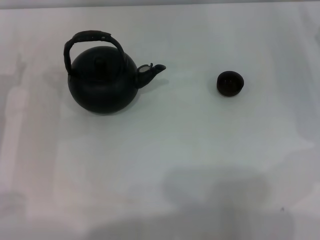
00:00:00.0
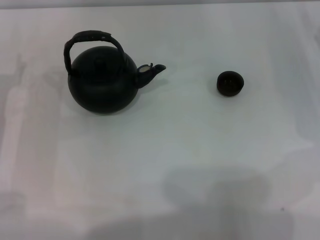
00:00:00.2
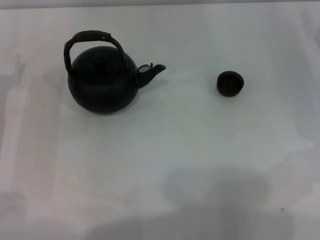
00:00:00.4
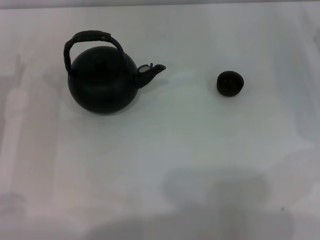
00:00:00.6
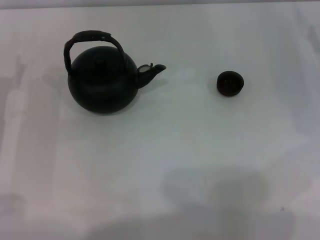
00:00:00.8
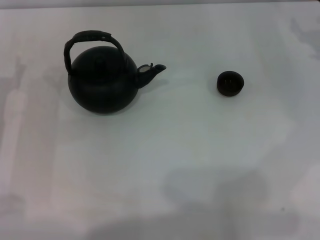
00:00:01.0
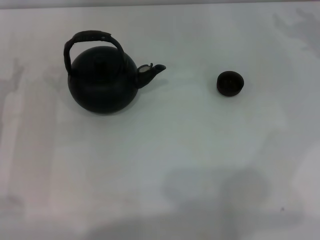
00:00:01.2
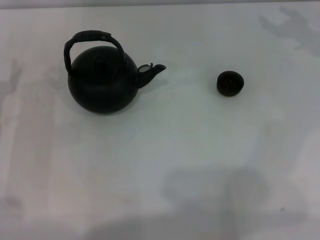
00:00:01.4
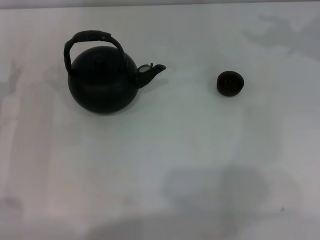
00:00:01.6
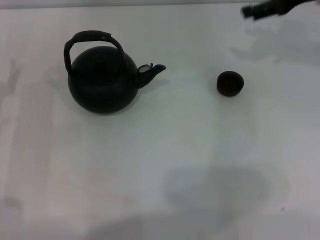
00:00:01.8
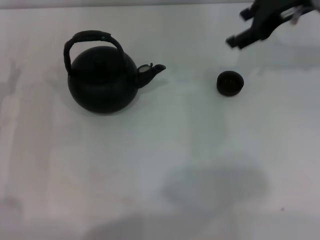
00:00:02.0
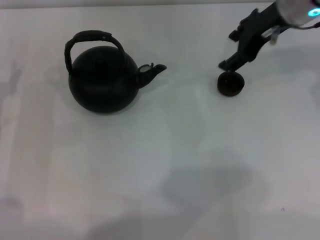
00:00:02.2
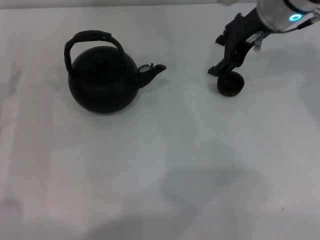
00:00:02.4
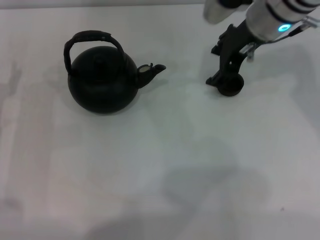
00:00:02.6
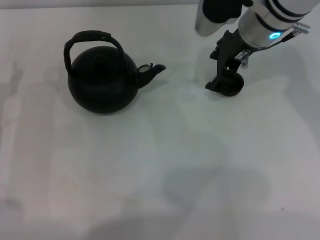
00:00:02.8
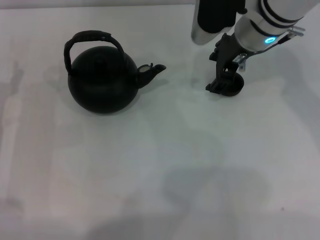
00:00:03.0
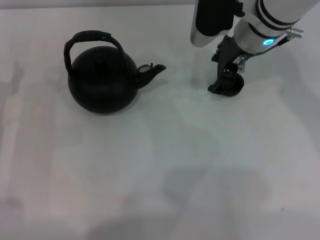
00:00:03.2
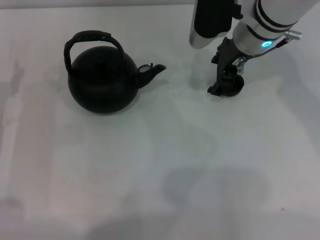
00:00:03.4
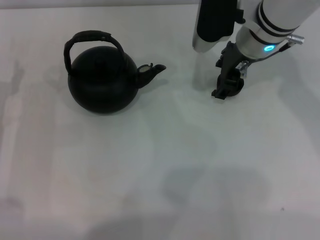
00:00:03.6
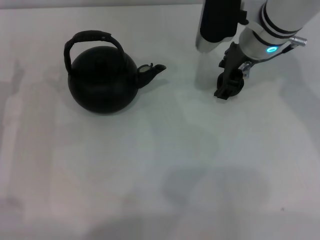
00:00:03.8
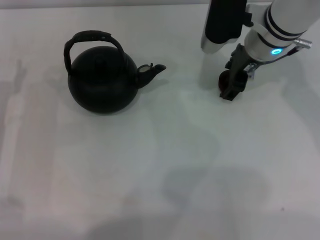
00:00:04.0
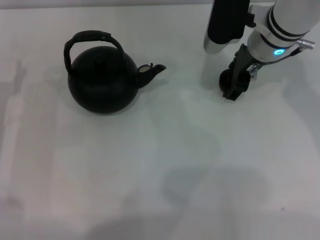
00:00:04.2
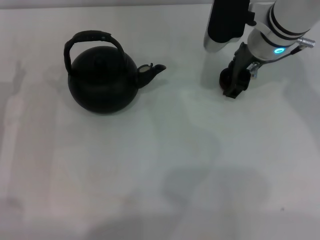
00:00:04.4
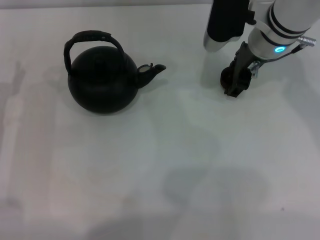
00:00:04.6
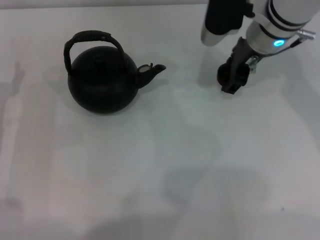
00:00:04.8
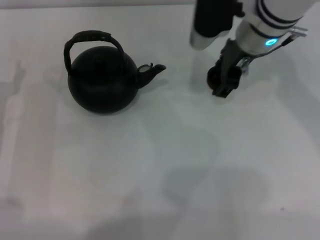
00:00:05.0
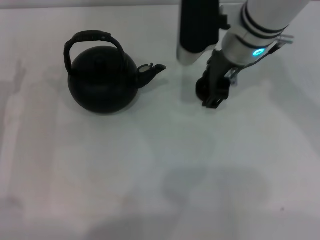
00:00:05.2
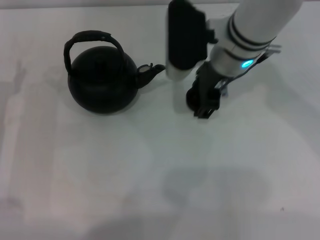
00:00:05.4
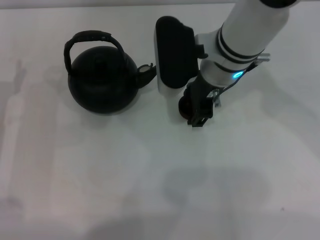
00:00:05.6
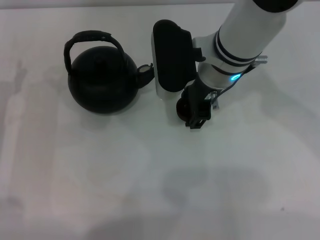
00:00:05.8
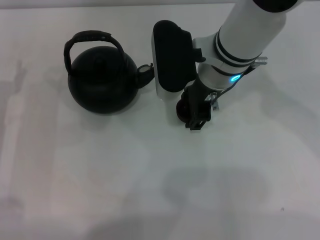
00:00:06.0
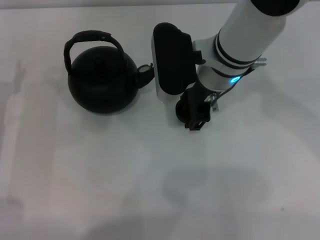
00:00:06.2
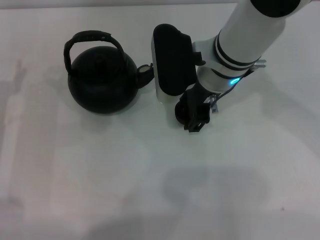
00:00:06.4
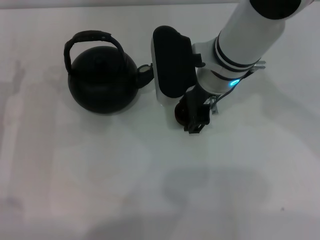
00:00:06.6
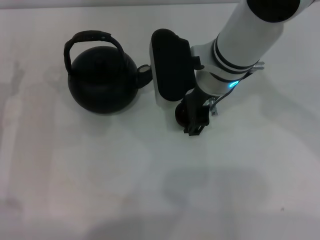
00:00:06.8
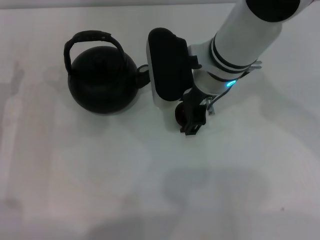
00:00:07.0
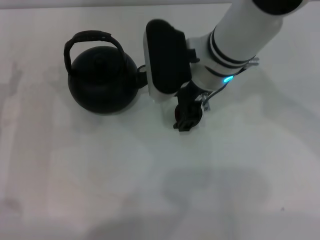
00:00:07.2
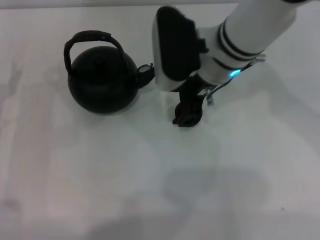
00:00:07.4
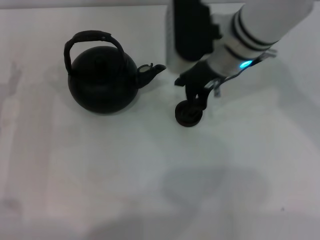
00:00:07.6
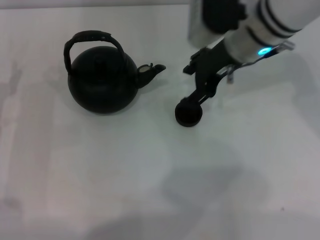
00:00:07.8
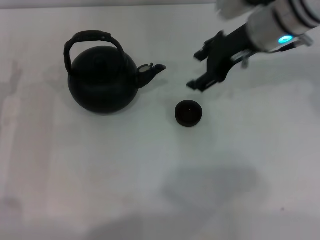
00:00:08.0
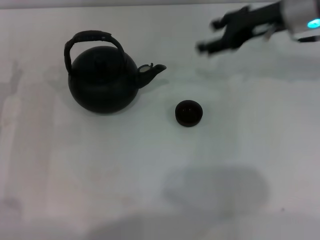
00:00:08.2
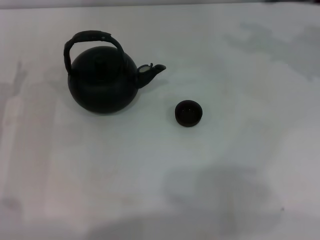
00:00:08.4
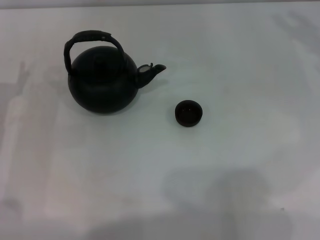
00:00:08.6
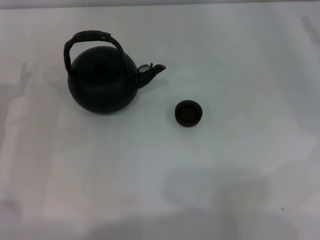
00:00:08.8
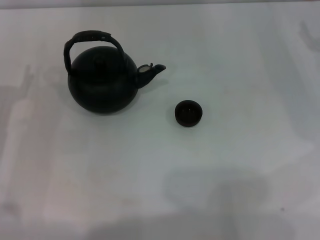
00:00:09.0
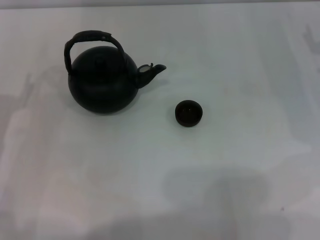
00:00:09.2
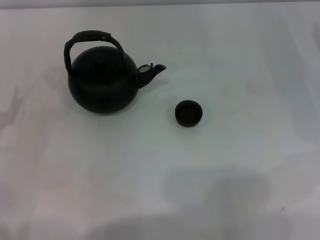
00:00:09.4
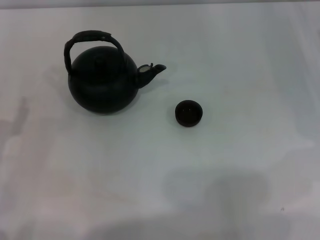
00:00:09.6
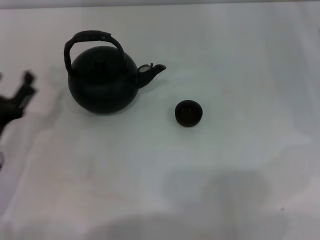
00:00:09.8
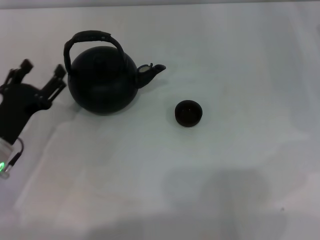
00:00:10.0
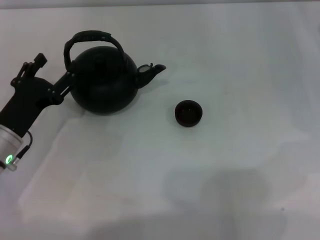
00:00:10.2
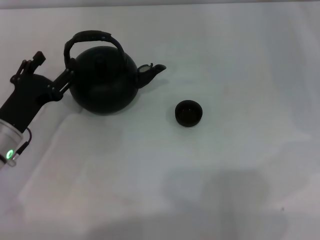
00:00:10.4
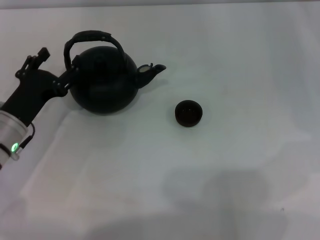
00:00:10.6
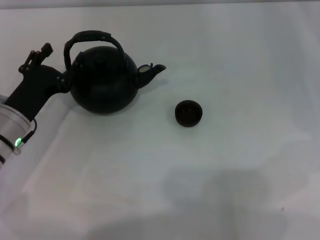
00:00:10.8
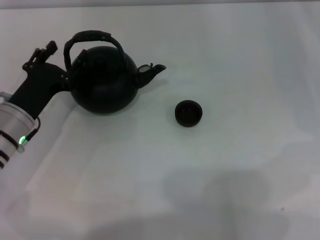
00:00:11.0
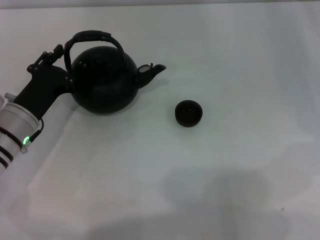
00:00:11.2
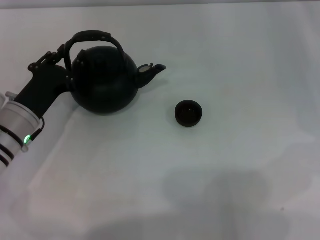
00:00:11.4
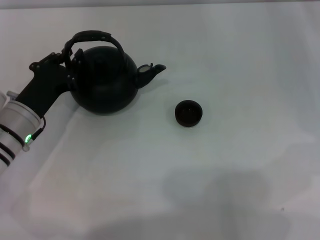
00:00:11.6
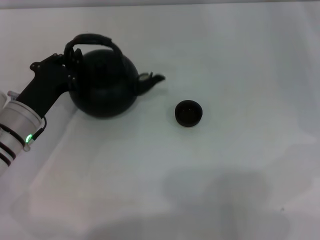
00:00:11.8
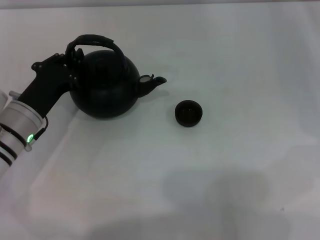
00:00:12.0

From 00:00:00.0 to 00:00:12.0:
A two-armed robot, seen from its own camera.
Task of the whole recording: Grasp the handle of the teapot with one hand and pour tea into the teacup.
Step, from 00:00:00.0 to 00:00:04.8: Pick up the teacup with the right gripper.
Step, from 00:00:05.0 to 00:00:07.8: Place the teacup in the center of view with the right gripper.
From 00:00:01.6 to 00:00:03.0: The right gripper heads to the left, covering about 20 cm.
From 00:00:03.0 to 00:00:04.4: The grippers move only a little.
From 00:00:04.4 to 00:00:06.0: The right gripper moves to the left and backward, about 10 cm.
From 00:00:06.0 to 00:00:07.6: The grippers move only a little.
From 00:00:07.6 to 00:00:09.0: The right gripper shifts roughly 25 cm to the right.
From 00:00:09.0 to 00:00:10.4: The left gripper shifts roughly 5 cm to the right.
From 00:00:10.4 to 00:00:12.0: The left gripper closes its fingers.

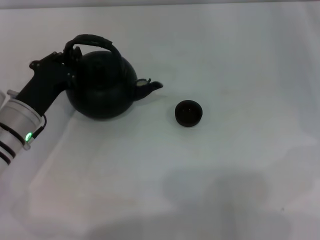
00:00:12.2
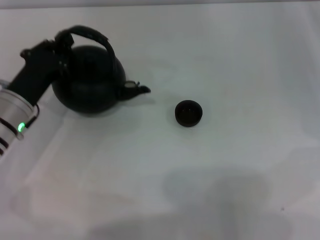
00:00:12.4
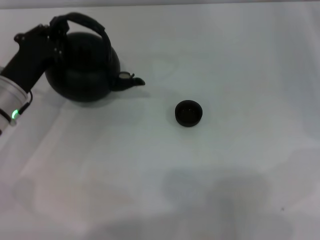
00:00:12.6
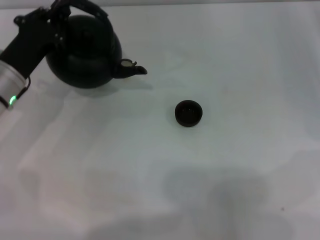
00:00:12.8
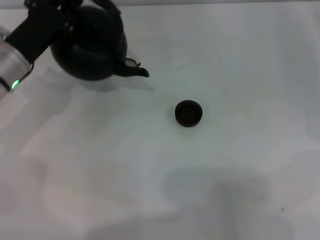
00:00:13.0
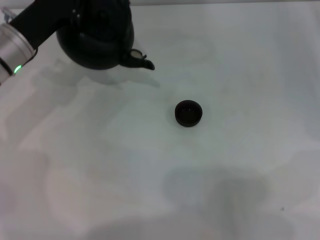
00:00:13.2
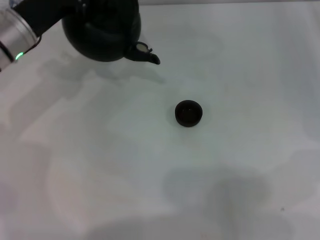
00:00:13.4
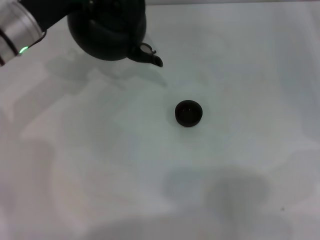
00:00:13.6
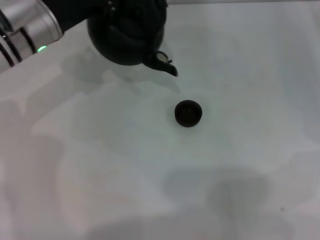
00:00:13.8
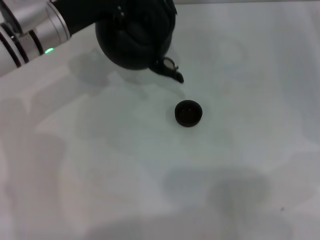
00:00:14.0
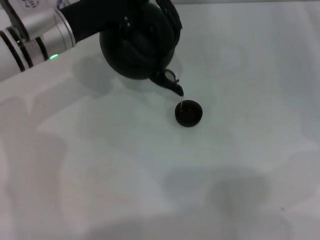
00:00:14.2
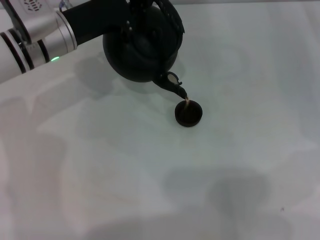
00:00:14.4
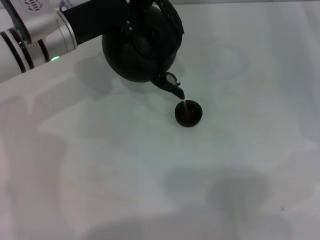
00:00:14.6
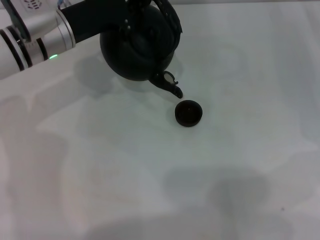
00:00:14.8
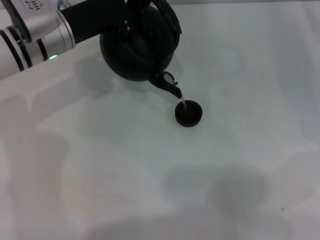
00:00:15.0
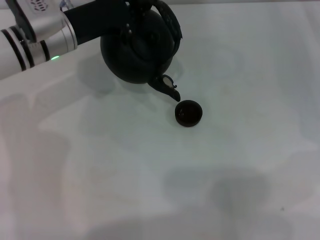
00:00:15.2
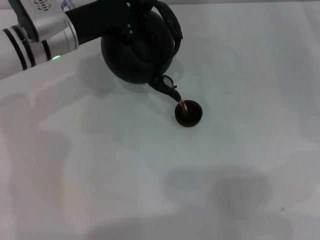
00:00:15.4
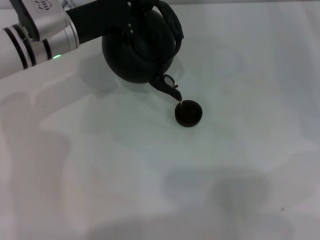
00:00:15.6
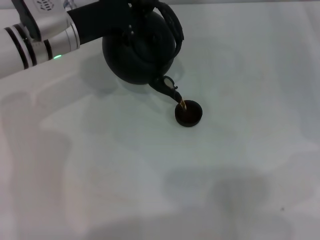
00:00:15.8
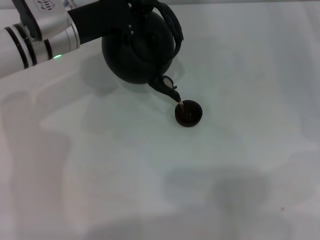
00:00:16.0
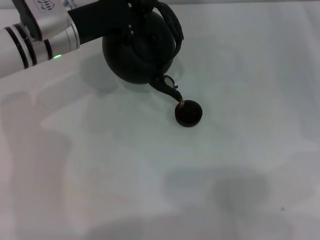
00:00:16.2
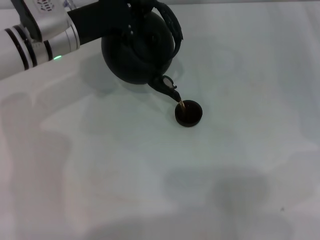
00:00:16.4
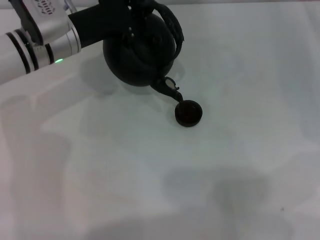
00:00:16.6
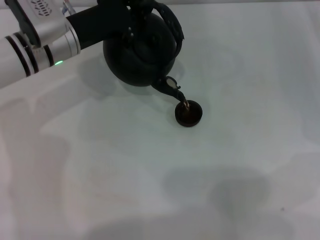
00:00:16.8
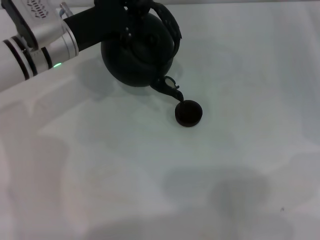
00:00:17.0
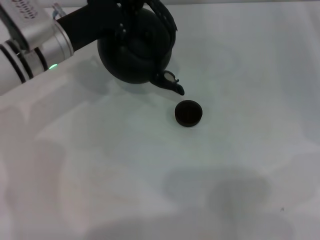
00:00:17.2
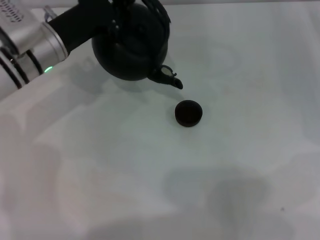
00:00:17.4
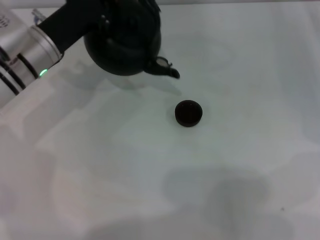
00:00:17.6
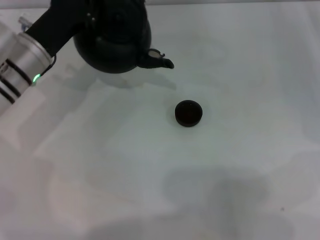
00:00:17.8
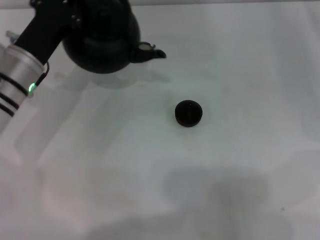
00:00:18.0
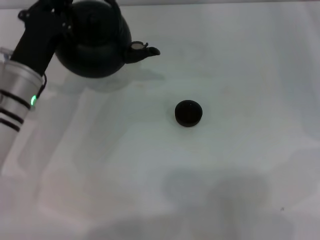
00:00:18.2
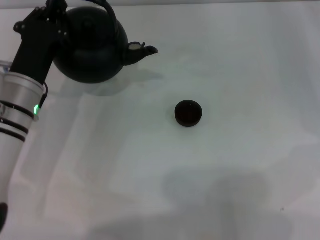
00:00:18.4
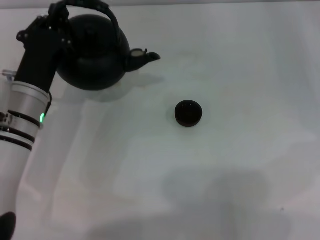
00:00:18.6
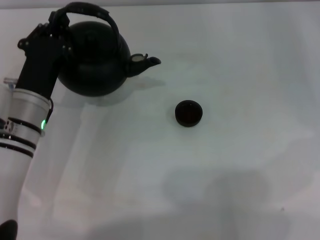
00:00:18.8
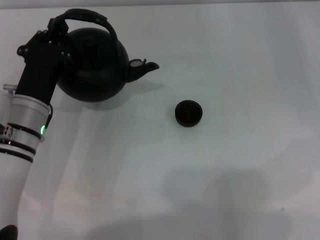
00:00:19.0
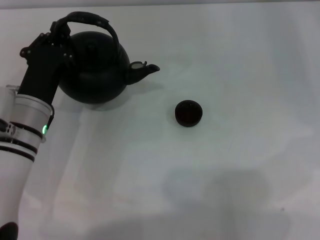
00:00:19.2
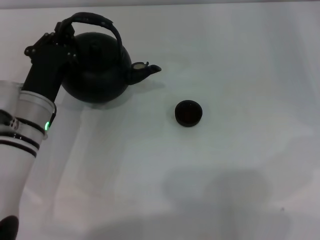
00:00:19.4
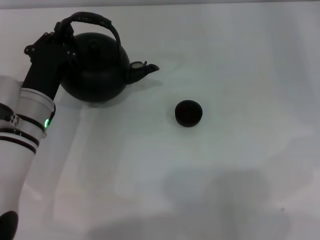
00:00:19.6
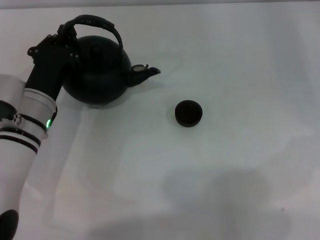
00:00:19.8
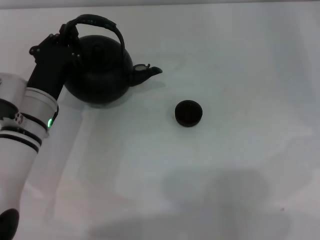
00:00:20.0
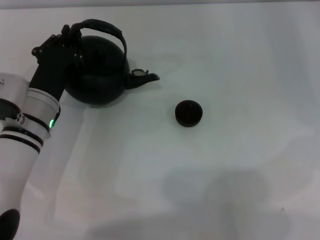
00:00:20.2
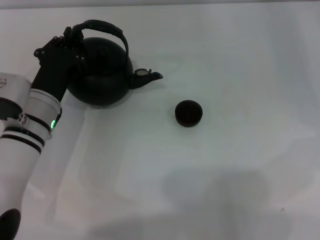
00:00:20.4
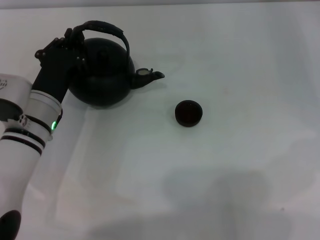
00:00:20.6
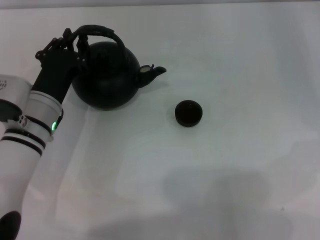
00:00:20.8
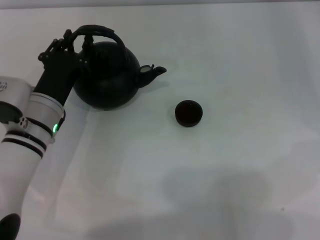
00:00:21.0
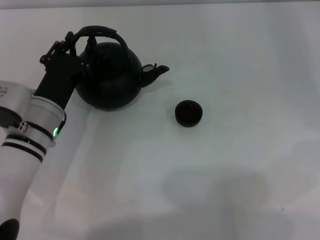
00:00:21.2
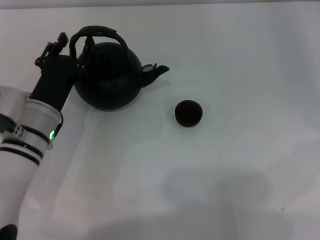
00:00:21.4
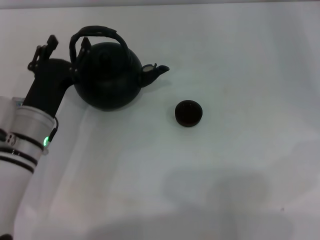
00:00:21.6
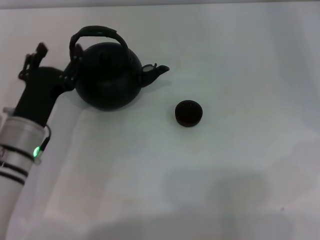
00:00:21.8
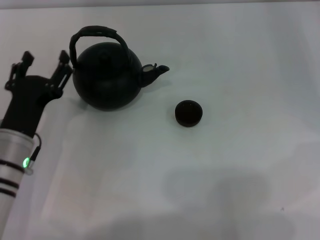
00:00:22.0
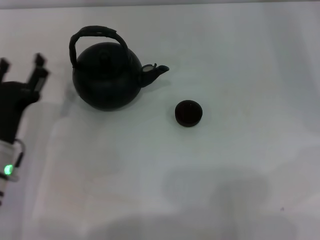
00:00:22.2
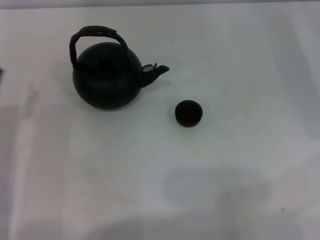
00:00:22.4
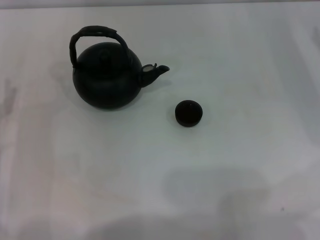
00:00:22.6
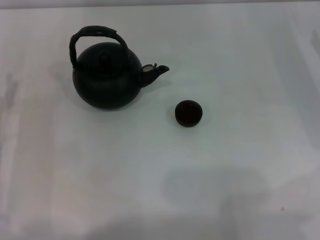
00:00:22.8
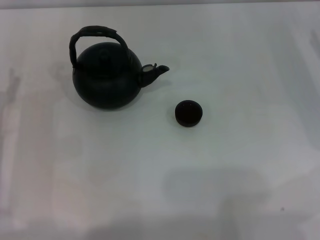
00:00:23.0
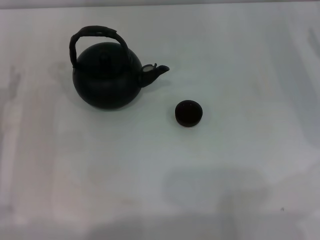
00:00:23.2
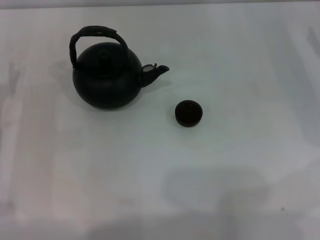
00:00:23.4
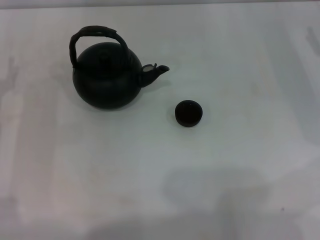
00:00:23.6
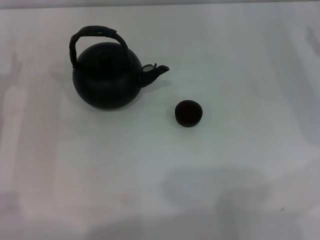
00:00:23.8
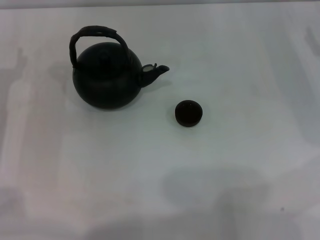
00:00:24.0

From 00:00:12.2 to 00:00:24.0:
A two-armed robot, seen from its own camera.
Task of the whole recording: Grasp the handle of the teapot with one hand and pour tea into the teacup.
Step, from 00:00:12.8 to 00:00:17.4: Pour tea into the teacup with the left gripper.
Step, from 00:00:17.8 to 00:00:22.0: Put down the teapot with the left gripper.
From 00:00:12.2 to 00:00:13.6: The left gripper shifts approximately 15 cm forward and upward.
From 00:00:13.6 to 00:00:15.2: There are only small adjustments of the grippers.
From 00:00:15.2 to 00:00:16.6: Both grippers stay put.
From 00:00:16.6 to 00:00:18.2: The left gripper moves backward, approximately 5 cm.
From 00:00:18.2 to 00:00:19.6: The grippers stay close to where they were, moving slightly.
From 00:00:19.6 to 00:00:21.0: The two grippers keep their place.
From 00:00:21.0 to 00:00:22.6: The left gripper moves to the left and backward, about 15 cm, and opens.
